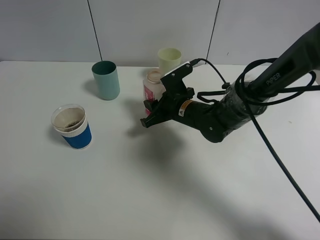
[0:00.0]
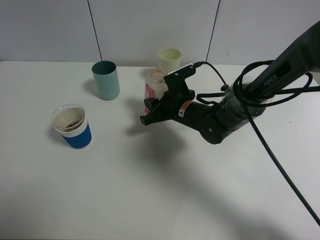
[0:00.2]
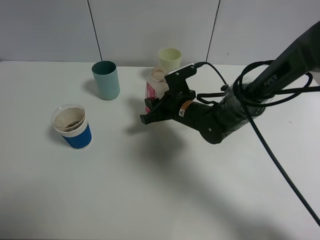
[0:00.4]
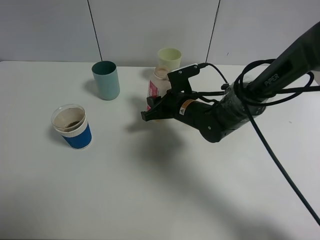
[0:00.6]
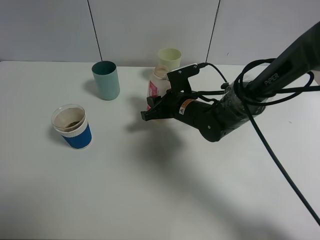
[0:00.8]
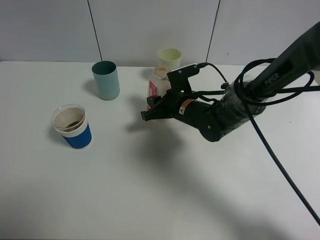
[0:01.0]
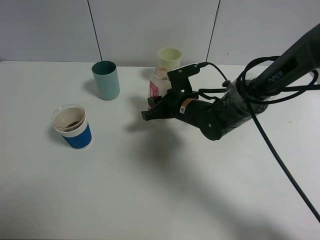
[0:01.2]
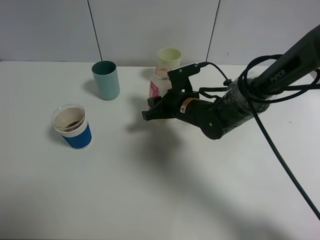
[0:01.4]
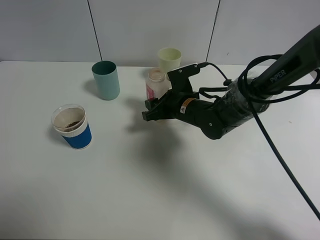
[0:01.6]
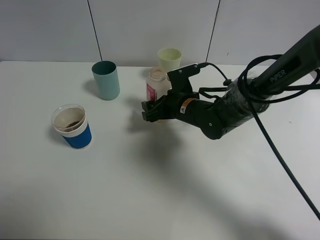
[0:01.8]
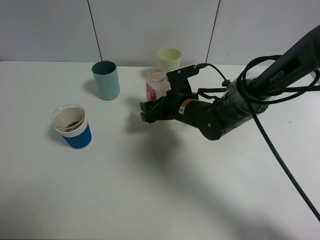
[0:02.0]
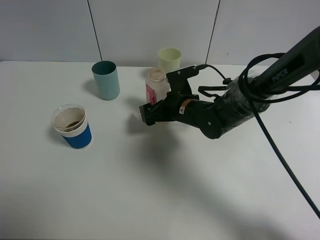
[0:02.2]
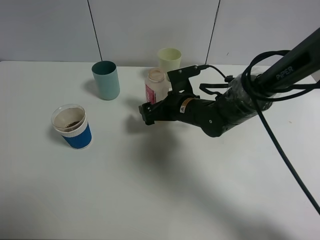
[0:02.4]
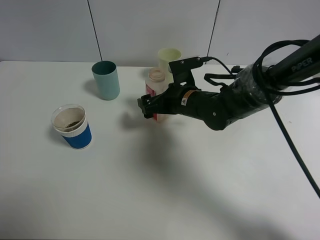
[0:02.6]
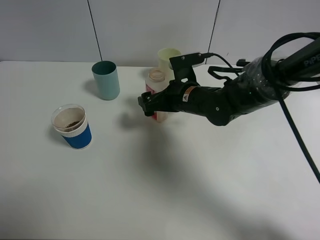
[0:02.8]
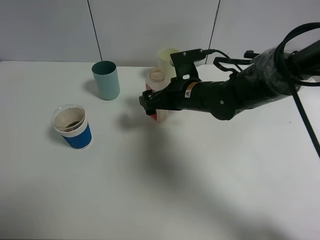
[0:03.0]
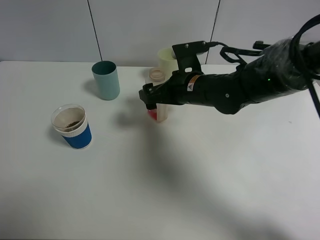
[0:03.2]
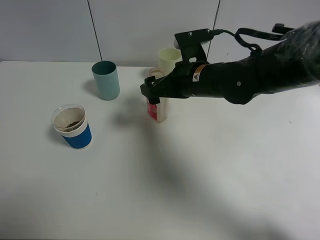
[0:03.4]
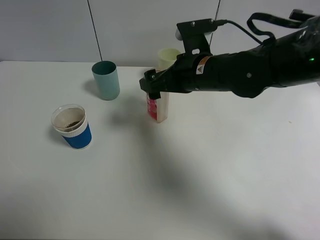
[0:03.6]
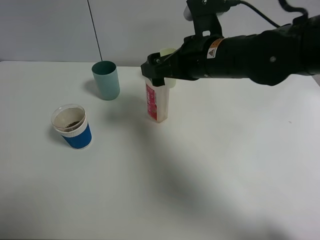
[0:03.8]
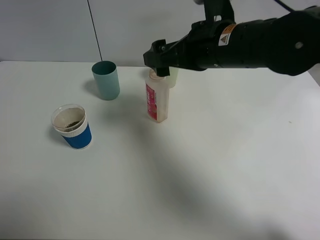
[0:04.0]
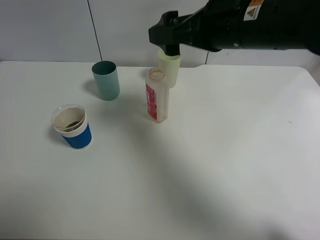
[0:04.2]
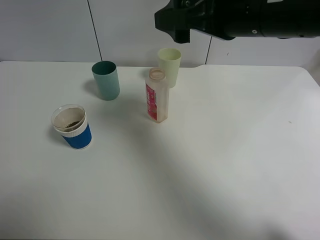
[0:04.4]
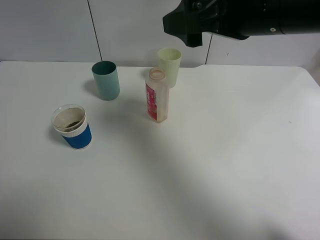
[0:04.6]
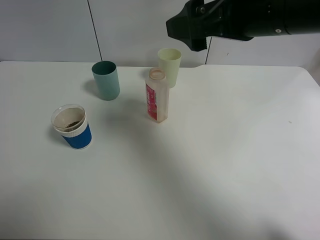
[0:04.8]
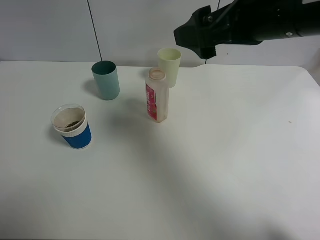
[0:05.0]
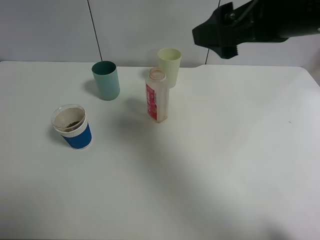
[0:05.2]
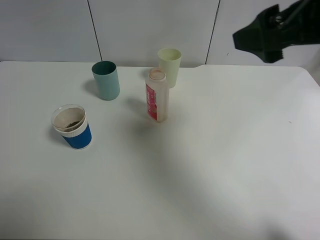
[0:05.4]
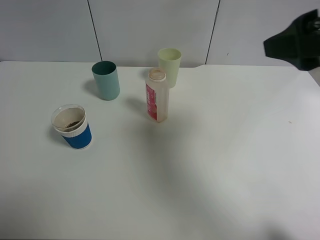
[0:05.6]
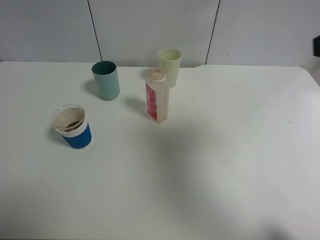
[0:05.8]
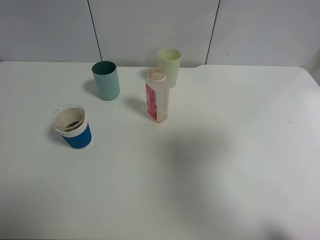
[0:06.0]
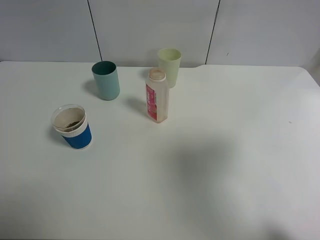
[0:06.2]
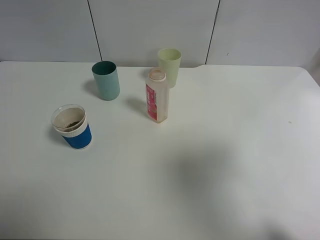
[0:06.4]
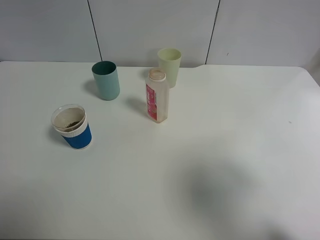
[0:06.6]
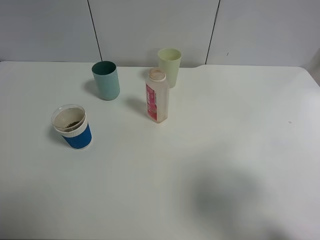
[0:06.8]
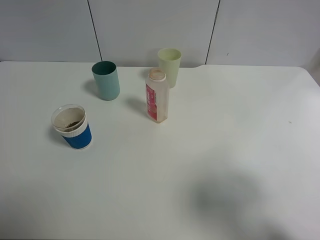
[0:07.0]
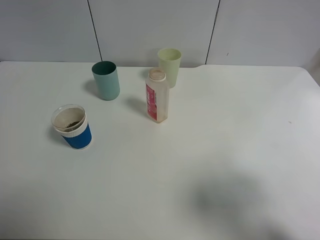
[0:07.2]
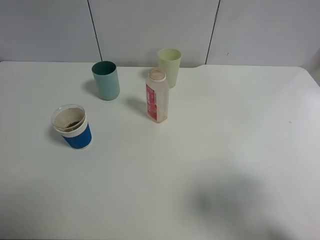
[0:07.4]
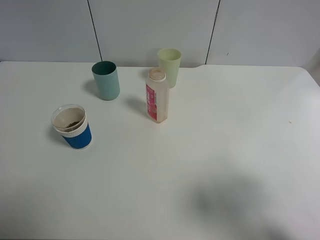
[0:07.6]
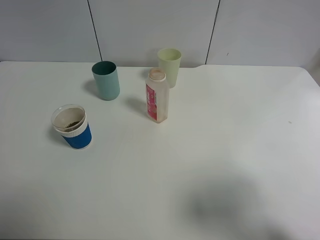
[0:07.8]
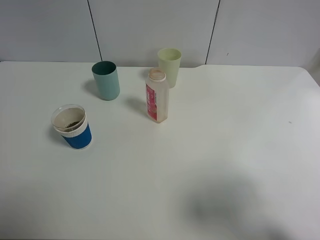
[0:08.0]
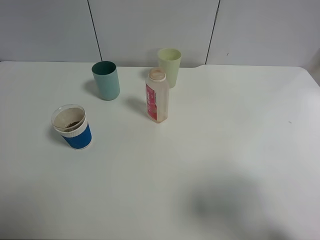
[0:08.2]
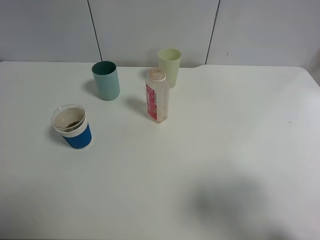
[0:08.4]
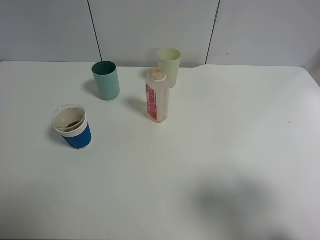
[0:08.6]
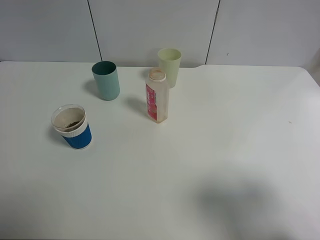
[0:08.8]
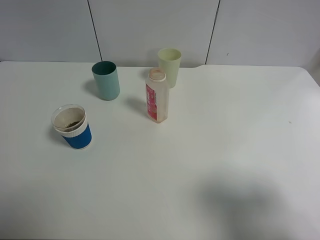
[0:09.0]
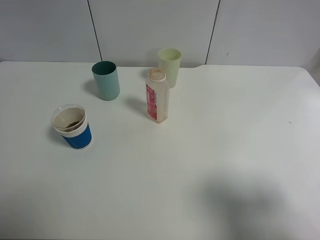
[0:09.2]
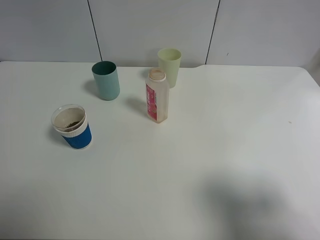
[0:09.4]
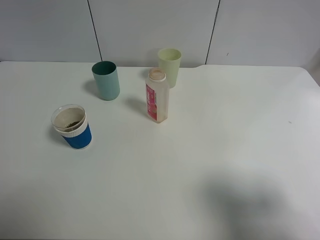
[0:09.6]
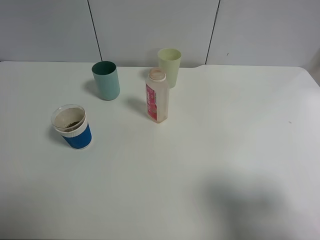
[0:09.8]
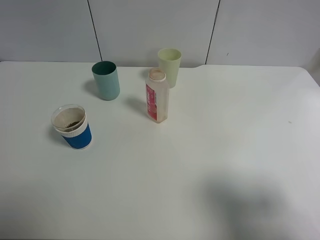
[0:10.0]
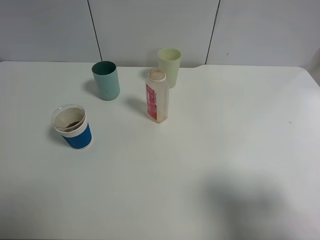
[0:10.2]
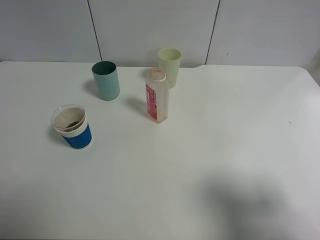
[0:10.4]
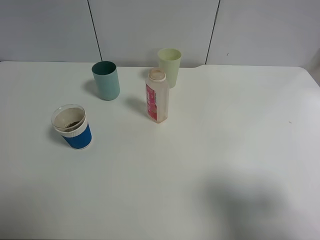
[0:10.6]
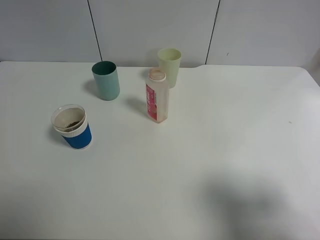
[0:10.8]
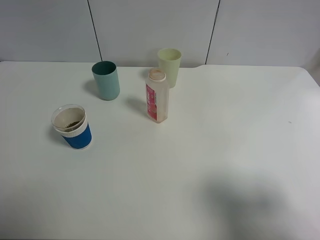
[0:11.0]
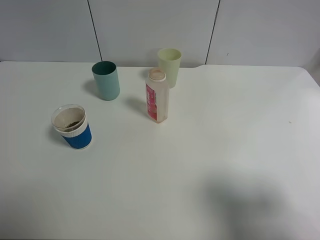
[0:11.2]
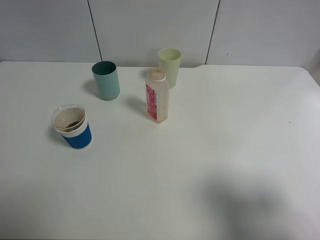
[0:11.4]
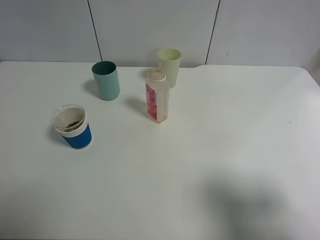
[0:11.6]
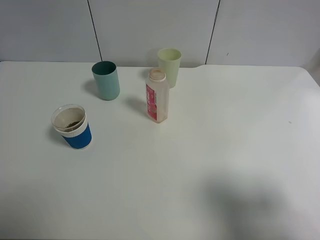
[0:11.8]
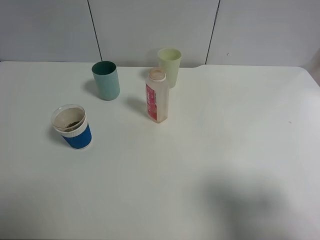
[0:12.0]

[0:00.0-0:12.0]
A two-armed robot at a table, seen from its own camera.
Task of the whole recording: use a clamp to hold the bottle of the drink, pour the beverage into a random cup, then clamp the cup containing the drink and pour the drink into another random cup.
Step, 0:00.0 to 0:03.6: Place the drink bottle on the table with right gripper.
0:00.0 to 0:01.6: The right gripper opens its fingers.
0:01.6 to 0:03.0: The right gripper shifts approximately 5 cm upward, and opens.
0:03.0 to 0:04.4: The right gripper heads upward, covering approximately 20 cm.
0:04.4 to 0:06.0: The right gripper travels to the right and backward by approximately 20 cm.
0:06.0 to 0:07.6: The right gripper is displaced downward and backward by approximately 15 cm.

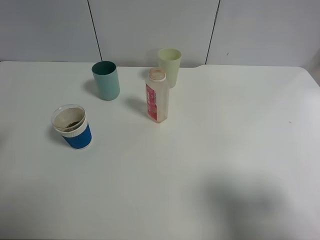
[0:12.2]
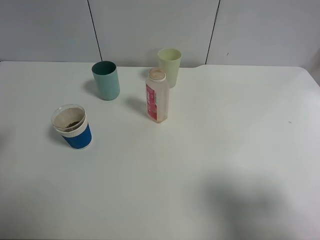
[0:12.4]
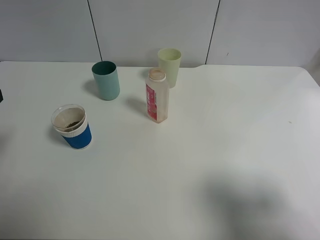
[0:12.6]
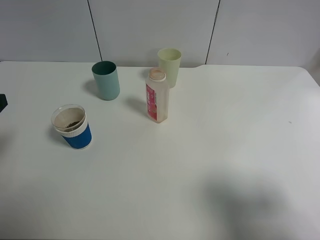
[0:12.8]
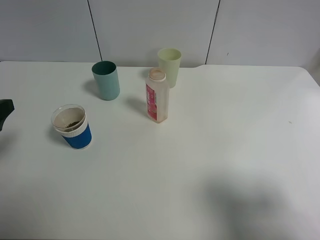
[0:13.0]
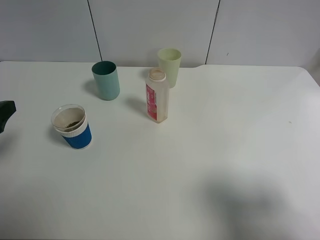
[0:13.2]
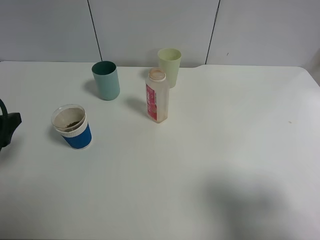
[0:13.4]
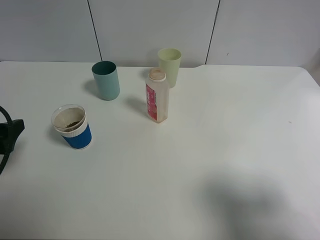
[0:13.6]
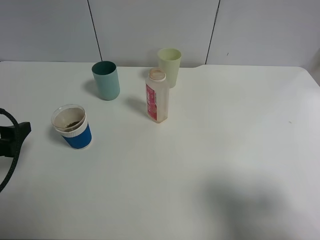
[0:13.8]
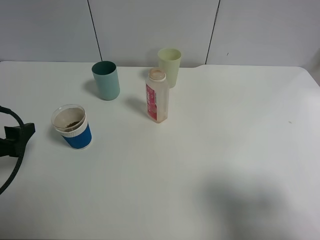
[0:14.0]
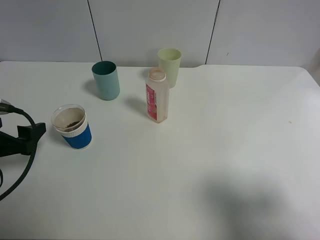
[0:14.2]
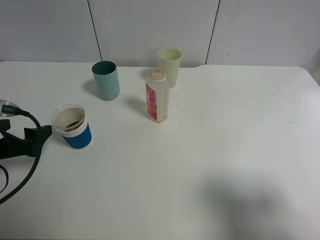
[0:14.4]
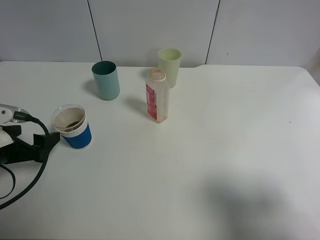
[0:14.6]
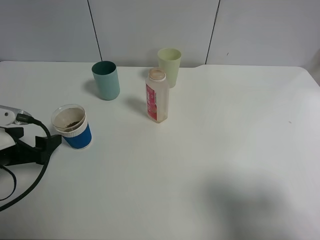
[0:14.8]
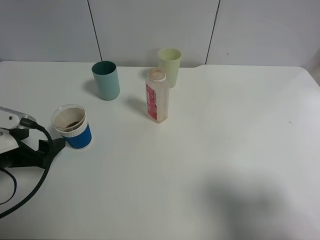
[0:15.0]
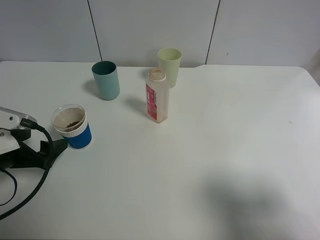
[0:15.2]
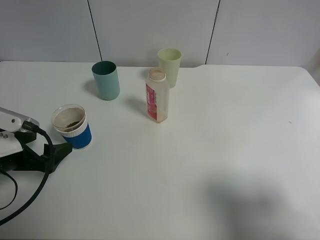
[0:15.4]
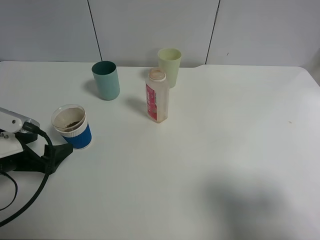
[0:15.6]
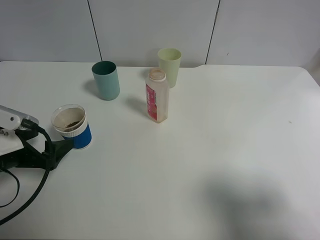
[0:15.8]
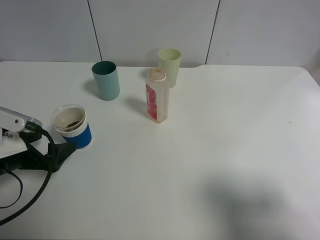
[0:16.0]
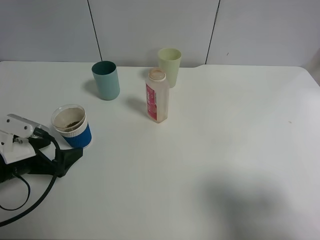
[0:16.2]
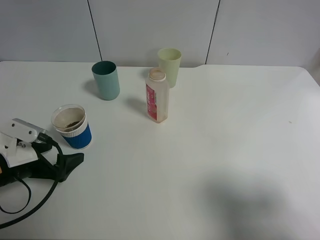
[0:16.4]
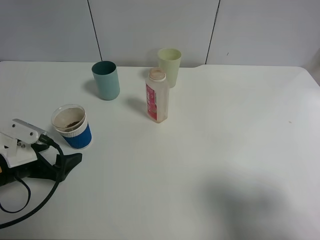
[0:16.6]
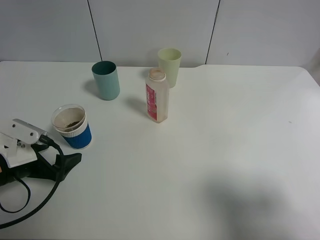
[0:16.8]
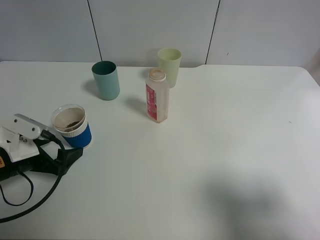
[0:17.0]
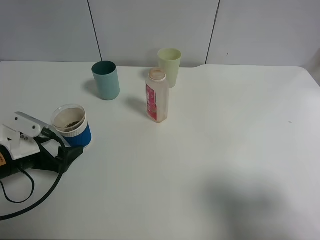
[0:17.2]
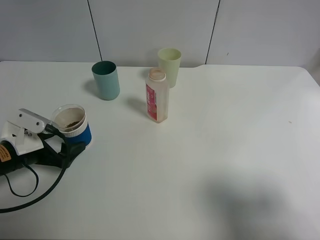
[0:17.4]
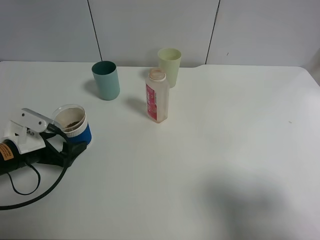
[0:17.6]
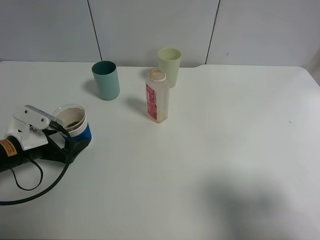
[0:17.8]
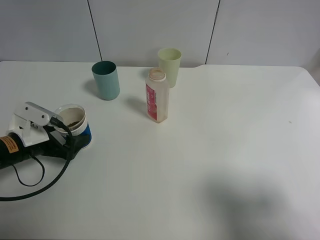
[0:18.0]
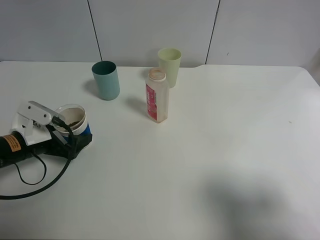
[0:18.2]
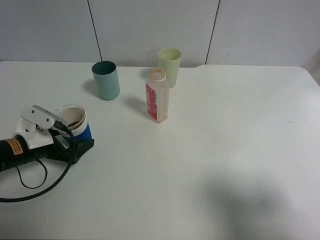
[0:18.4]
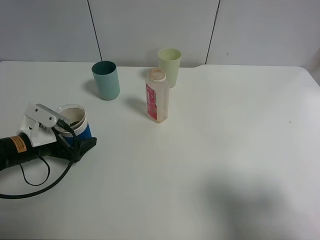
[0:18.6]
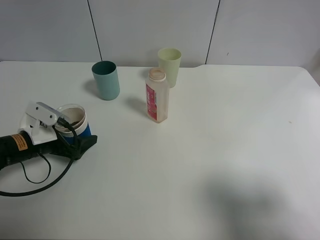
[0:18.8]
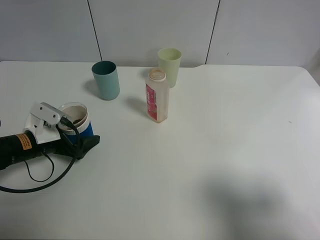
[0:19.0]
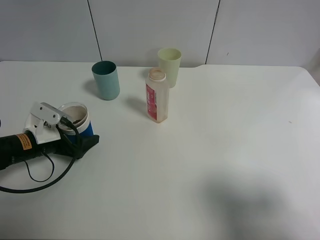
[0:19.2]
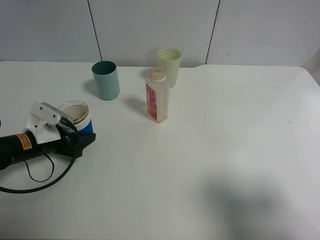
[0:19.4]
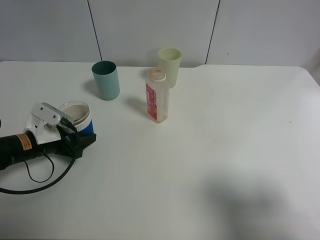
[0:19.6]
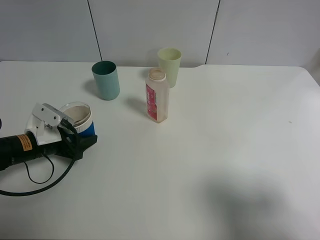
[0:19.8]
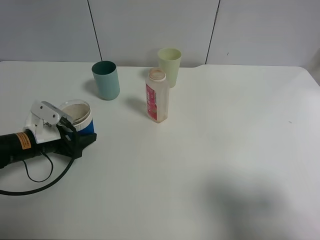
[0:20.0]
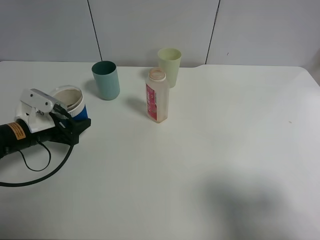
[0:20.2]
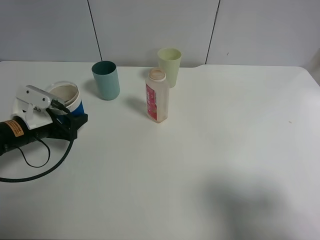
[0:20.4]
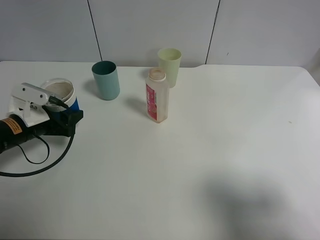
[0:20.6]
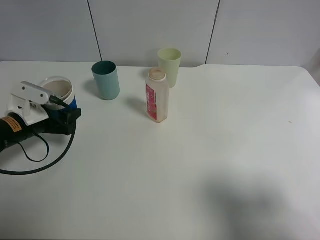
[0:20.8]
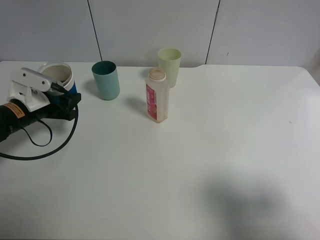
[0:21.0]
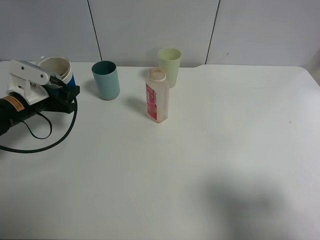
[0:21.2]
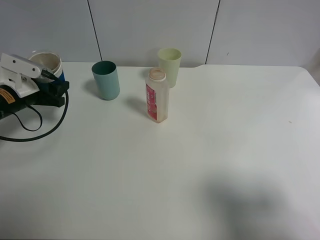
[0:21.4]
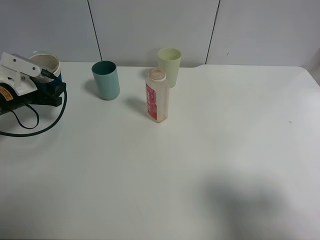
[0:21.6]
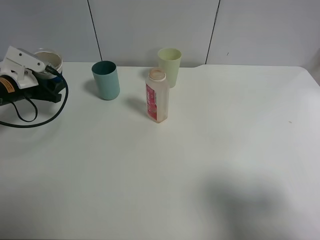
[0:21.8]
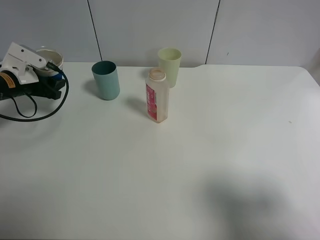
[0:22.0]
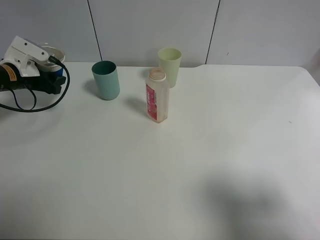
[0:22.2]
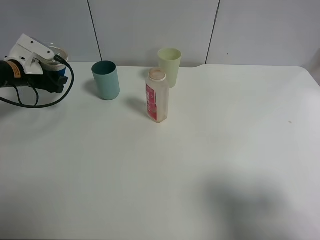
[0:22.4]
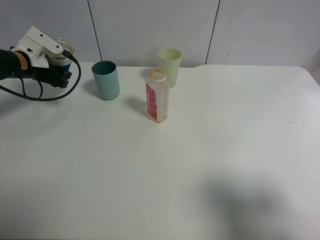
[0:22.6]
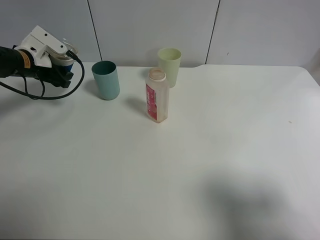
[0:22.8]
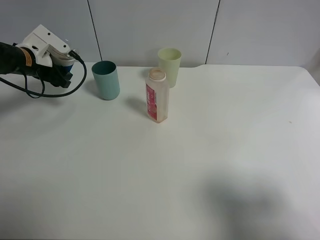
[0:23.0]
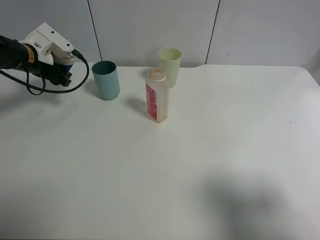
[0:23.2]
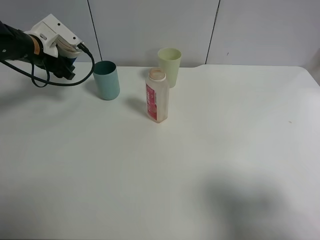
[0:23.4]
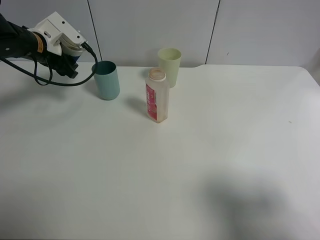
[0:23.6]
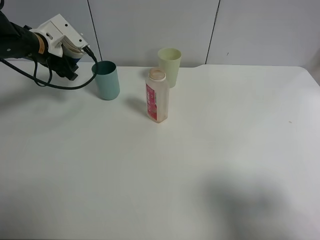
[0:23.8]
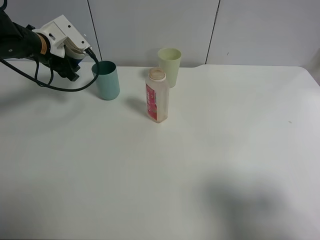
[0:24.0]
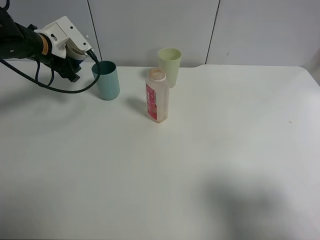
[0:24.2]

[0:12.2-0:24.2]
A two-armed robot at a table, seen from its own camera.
Task of the whole recording: use a clamp to hold the bottle of the drink, pour the beverage into a random cup, then clamp the cup containing the drink and pour the drink into another random cup.
Step, 0:12.2 to 0:20.2: Pick up the paper cup with left gripper.
0:12.2 to 0:13.8: The left gripper is displaced downward by approximately 10 cm.
0:13.8 to 0:15.2: The left gripper changes place by about 5 cm.
0:15.2 to 0:16.6: There are only small adjustments of the grippers.
0:16.6 to 0:18.2: The left gripper is displaced forward by approximately 5 cm.
0:18.2 to 0:19.8: The left gripper closes up.
0:19.8 to 0:21.2: The left gripper is displaced forward and upward by approximately 10 cm.
0:21.2 to 0:22.6: The left gripper is displaced forward by about 10 cm.
0:22.6 to 0:24.2: The left gripper is displaced to the right by approximately 5 cm.
